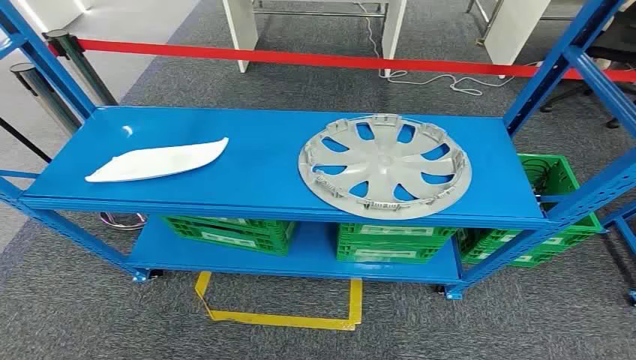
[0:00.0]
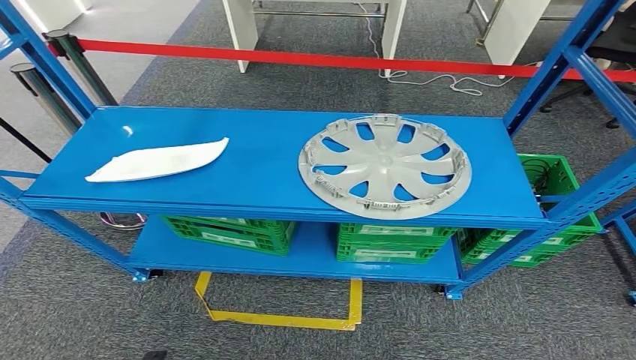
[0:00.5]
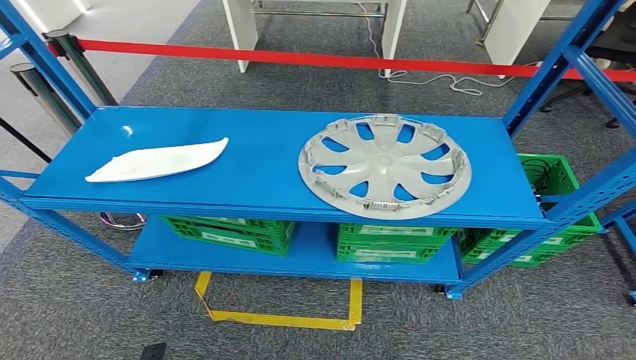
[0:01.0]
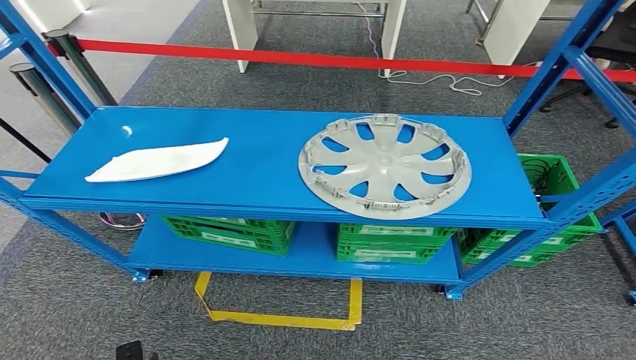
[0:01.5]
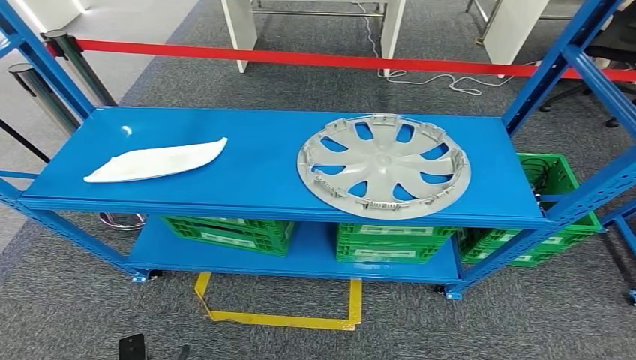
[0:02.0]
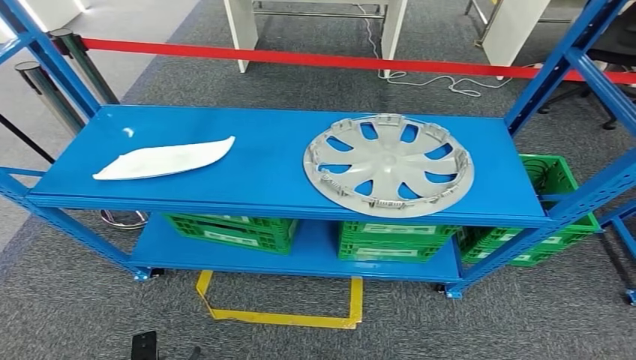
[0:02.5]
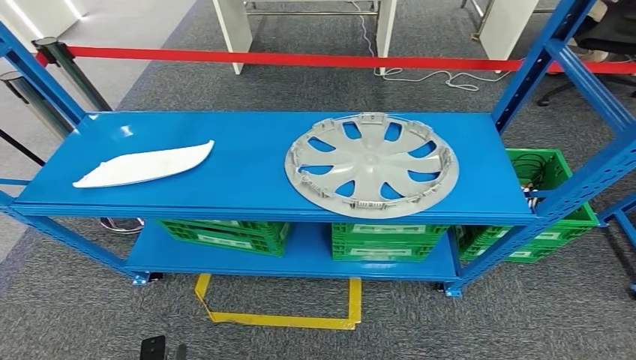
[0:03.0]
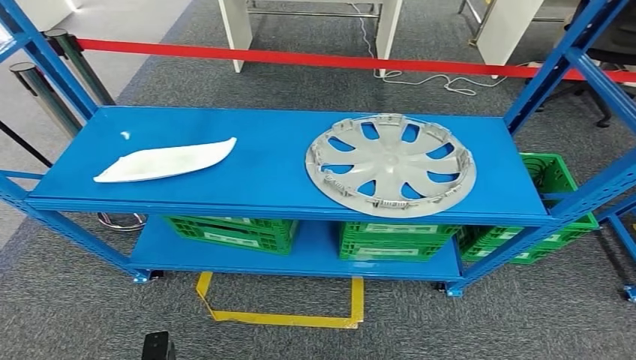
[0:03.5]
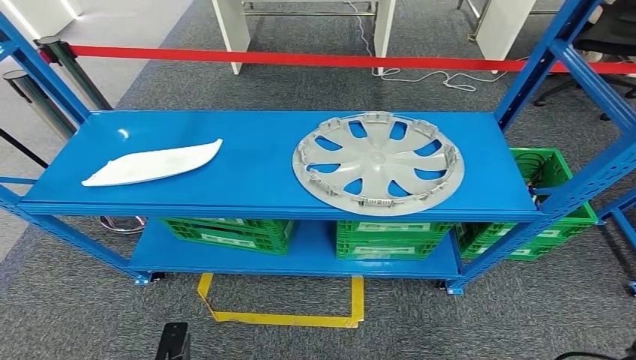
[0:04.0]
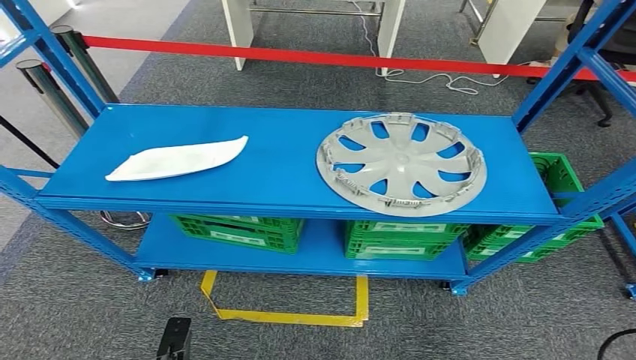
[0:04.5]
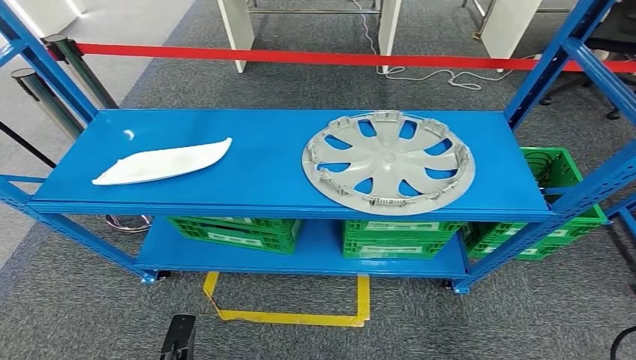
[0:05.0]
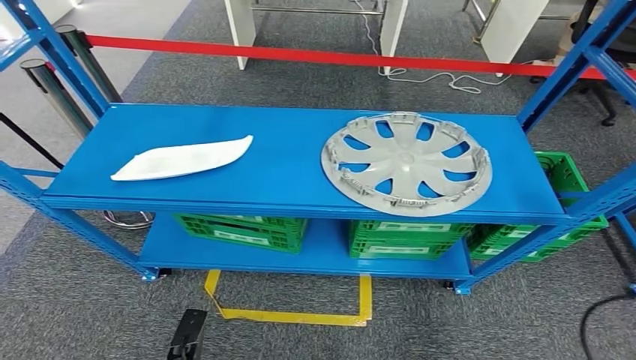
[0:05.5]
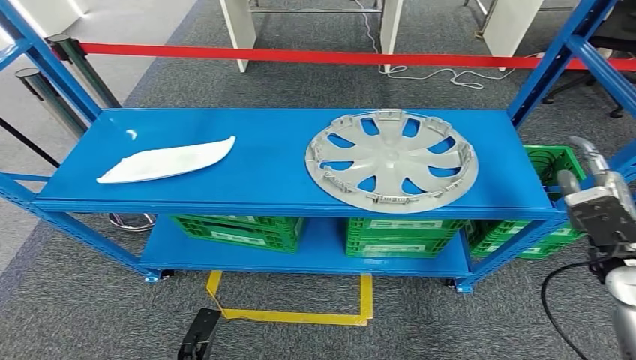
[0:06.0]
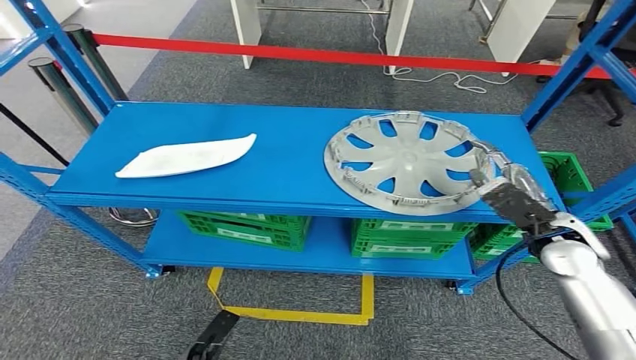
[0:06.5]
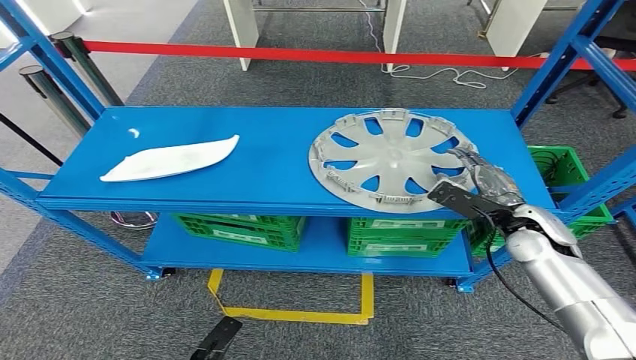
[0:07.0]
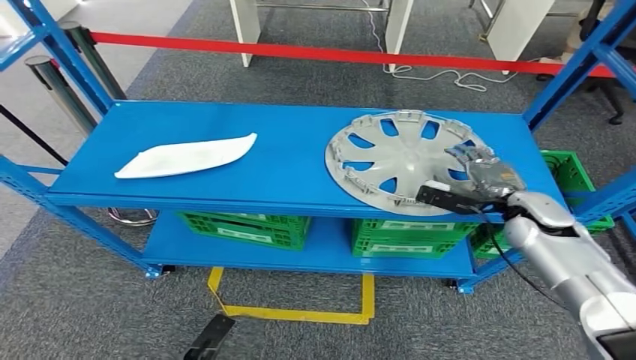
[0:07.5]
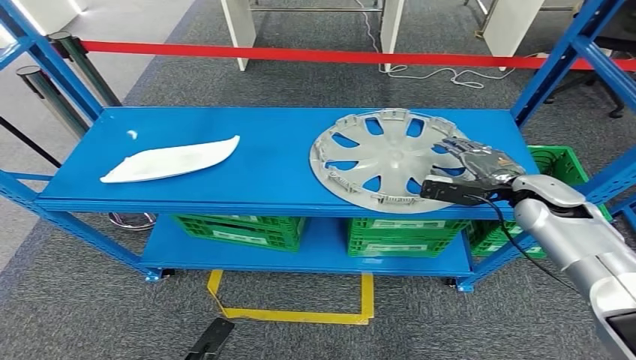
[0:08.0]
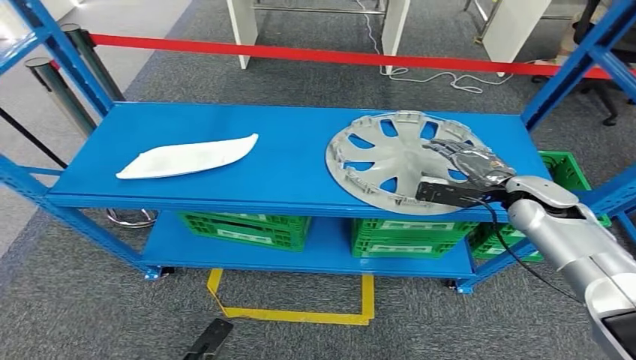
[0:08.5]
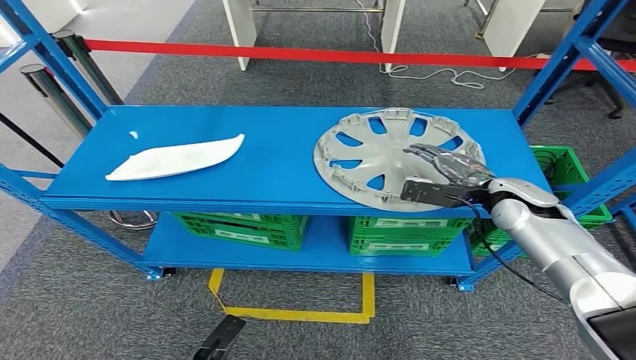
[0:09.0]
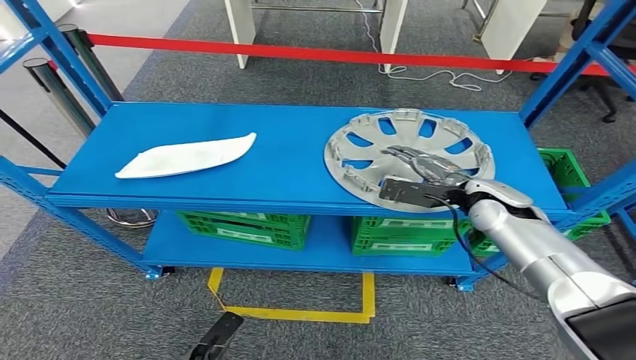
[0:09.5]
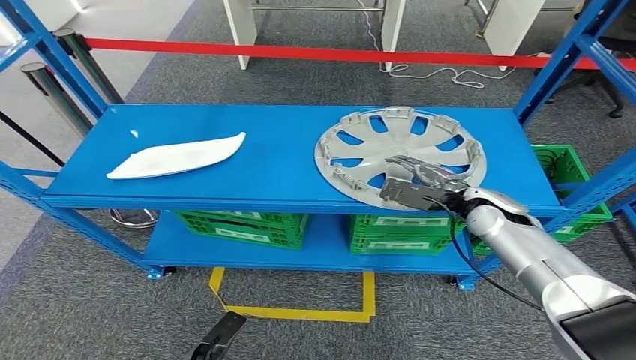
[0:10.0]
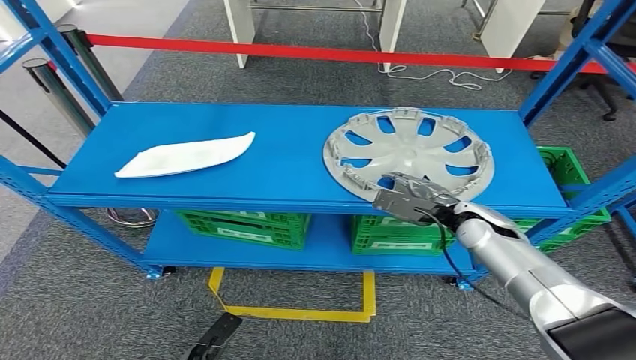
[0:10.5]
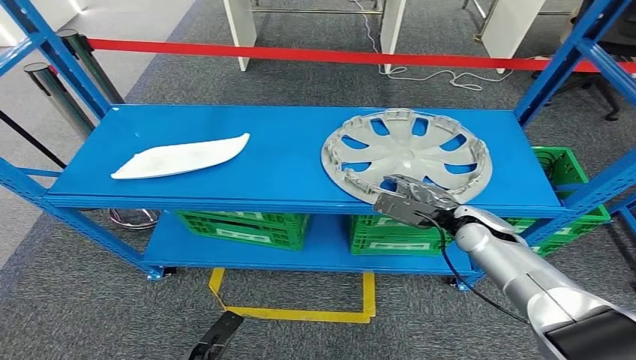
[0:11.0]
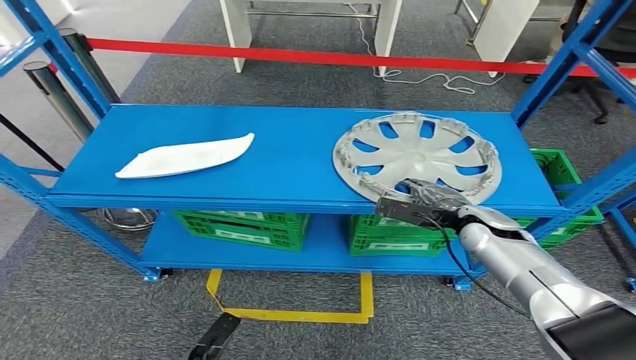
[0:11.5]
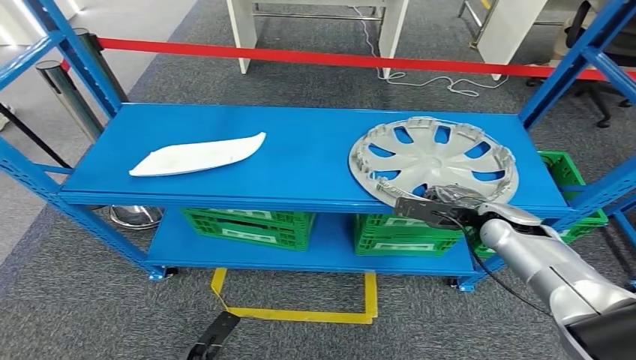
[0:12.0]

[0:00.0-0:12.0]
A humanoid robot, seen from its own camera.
0:02.0 to 0:04.0: The right hand moves upward and forward, roughly 20 cm.
0:06.0 to 0:08.0: The right hand is displaced forward by approximately 15 cm.

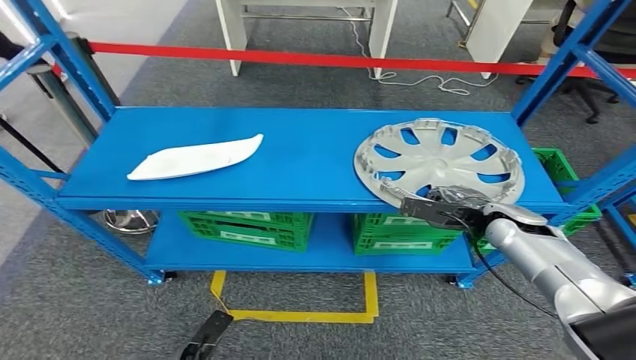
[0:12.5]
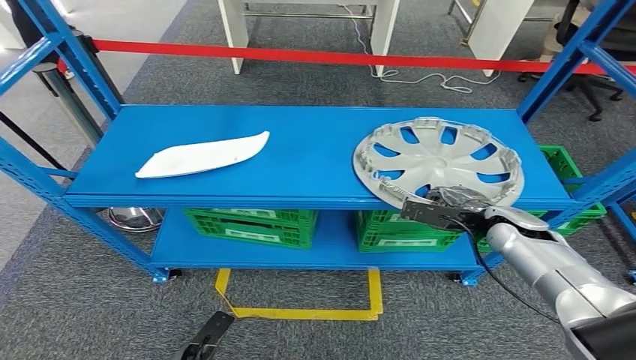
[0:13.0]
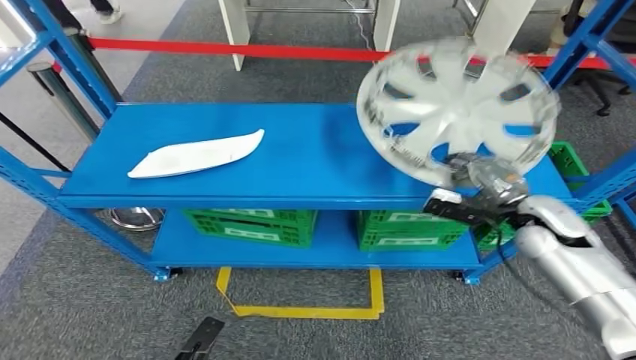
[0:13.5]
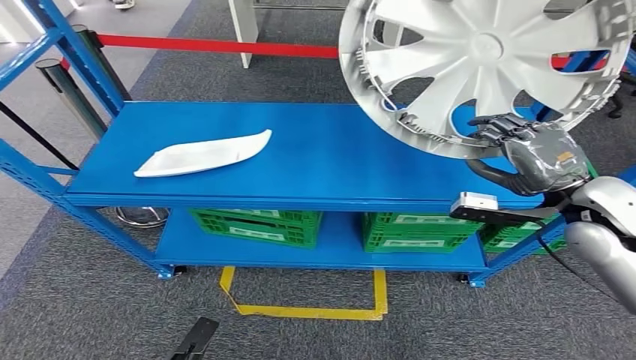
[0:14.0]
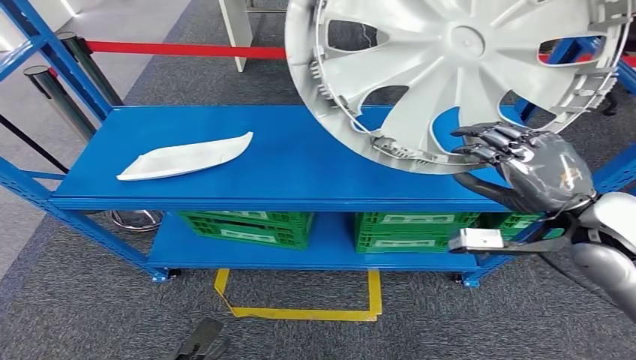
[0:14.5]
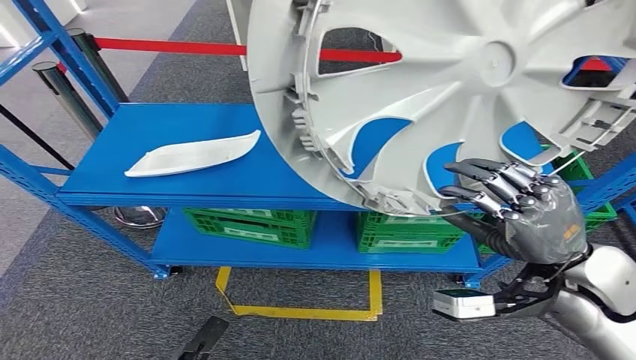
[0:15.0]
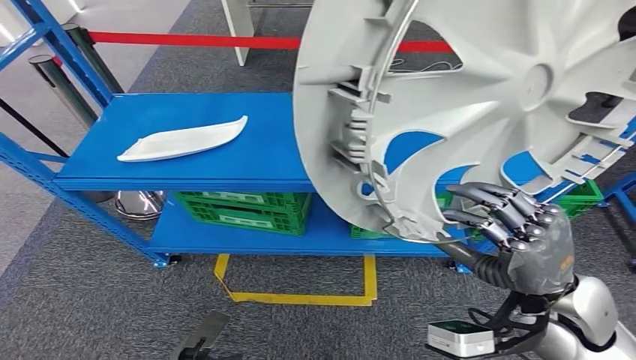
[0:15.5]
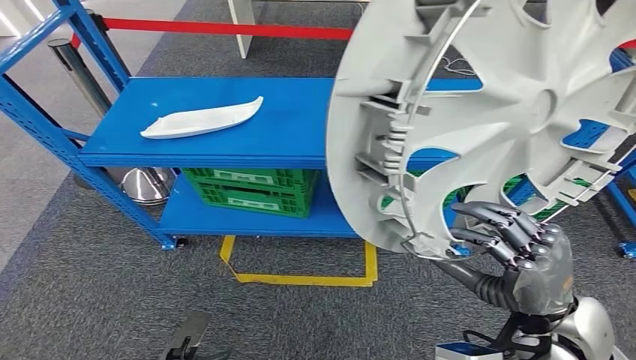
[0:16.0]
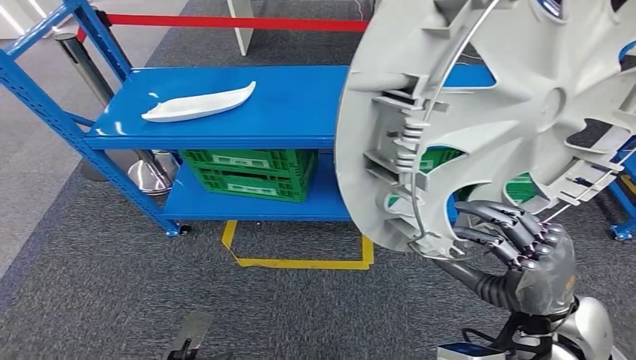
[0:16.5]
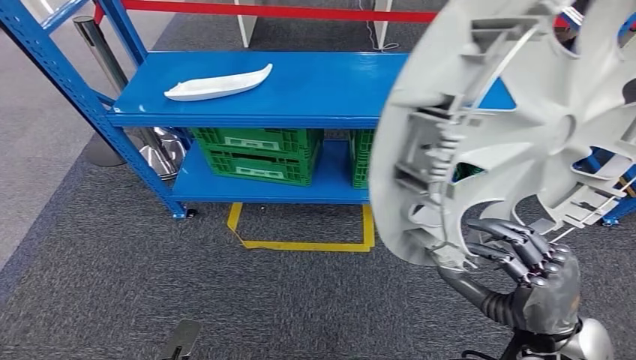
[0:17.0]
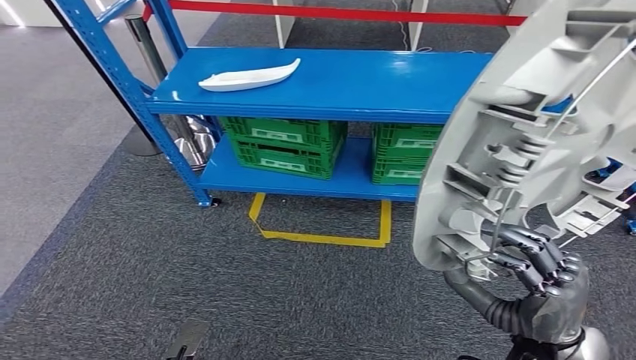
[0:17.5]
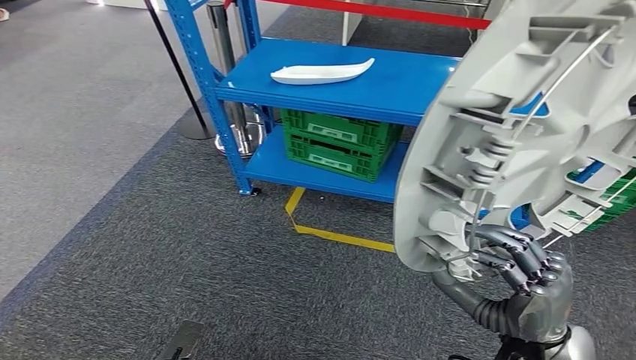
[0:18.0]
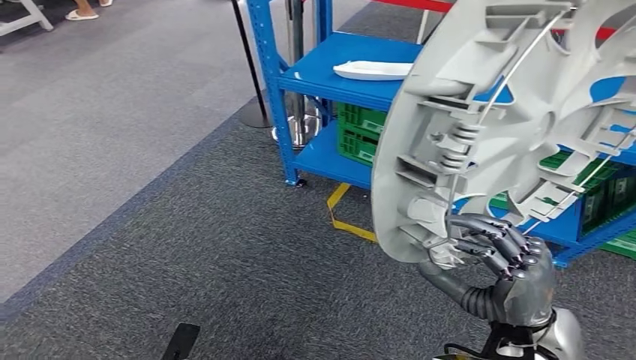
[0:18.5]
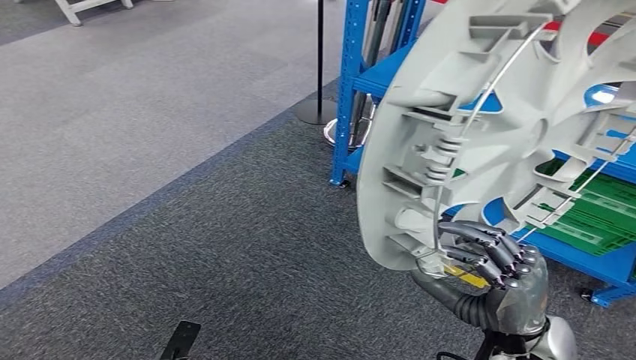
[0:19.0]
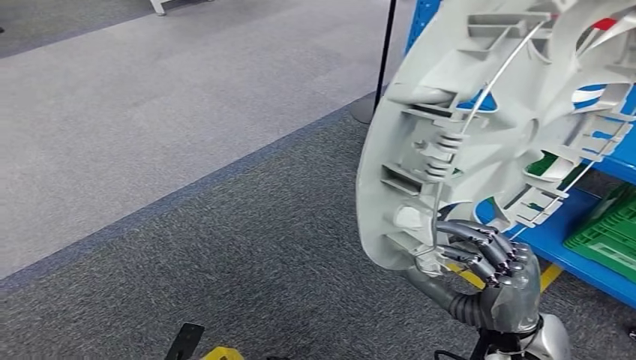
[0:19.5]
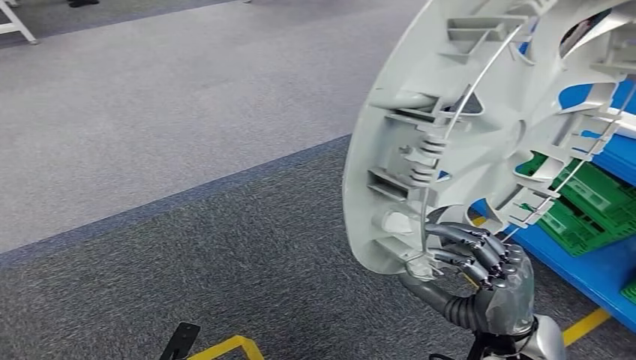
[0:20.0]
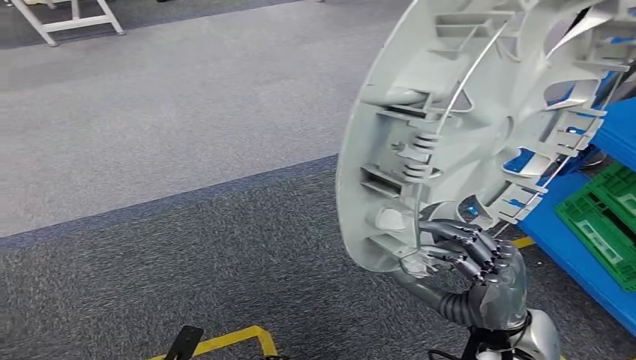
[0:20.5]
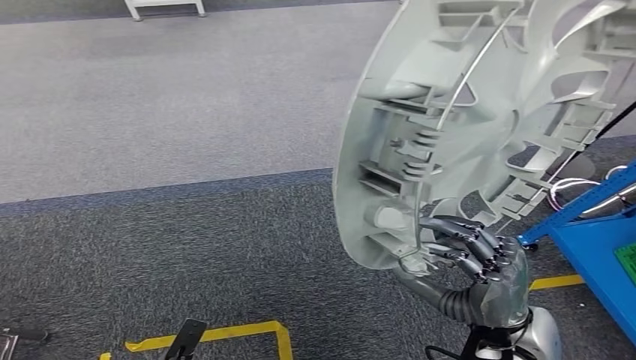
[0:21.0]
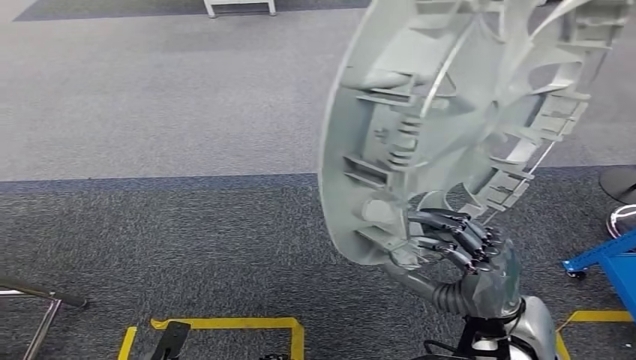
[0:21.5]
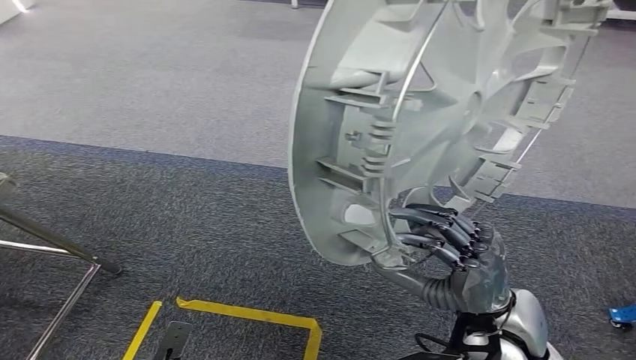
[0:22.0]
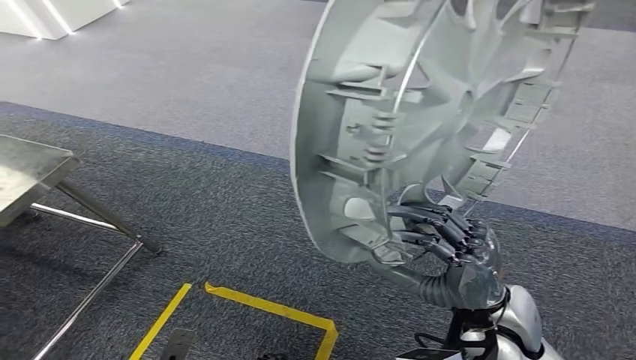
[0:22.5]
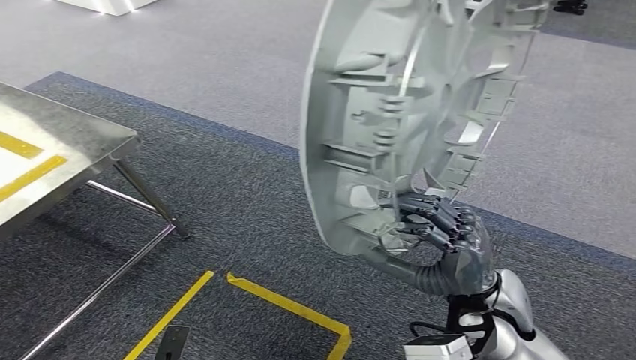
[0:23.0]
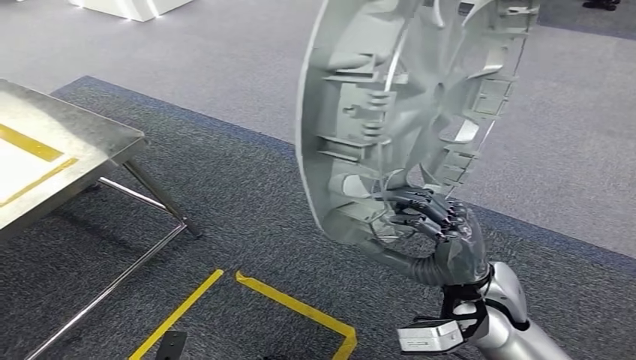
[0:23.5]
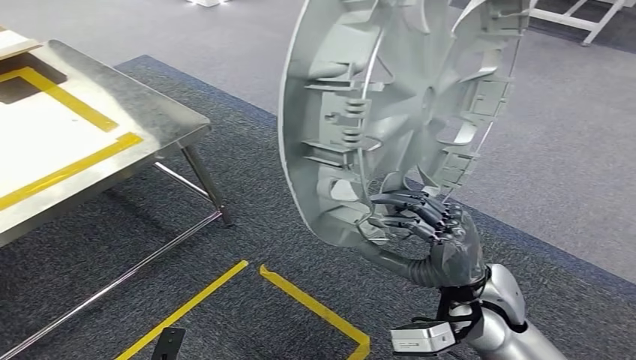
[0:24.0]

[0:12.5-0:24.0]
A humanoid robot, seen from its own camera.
Step, 0:12.5 to 0:16.5: Pick up the small component from the shelf.
